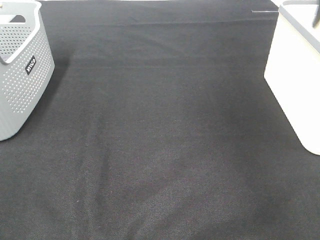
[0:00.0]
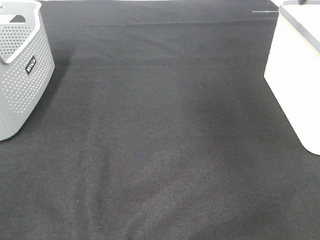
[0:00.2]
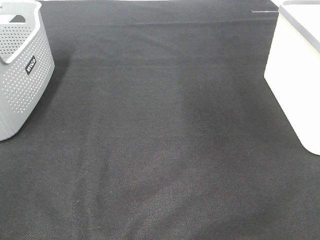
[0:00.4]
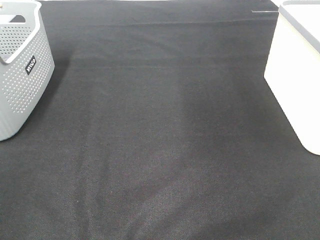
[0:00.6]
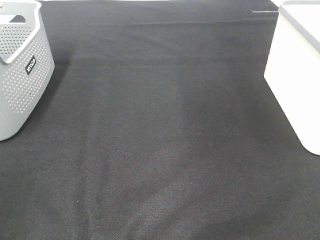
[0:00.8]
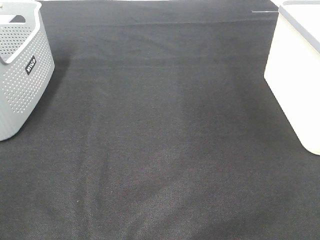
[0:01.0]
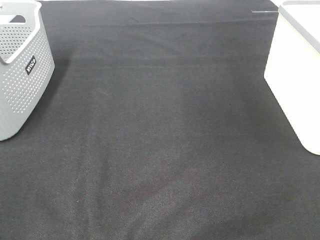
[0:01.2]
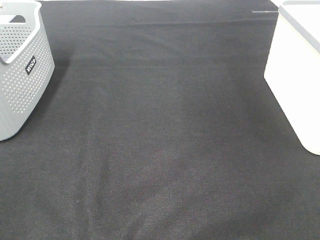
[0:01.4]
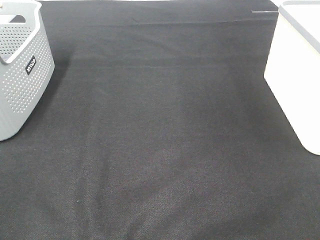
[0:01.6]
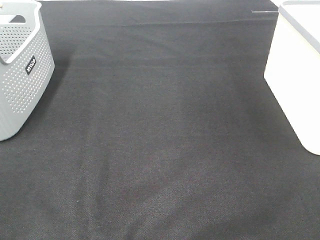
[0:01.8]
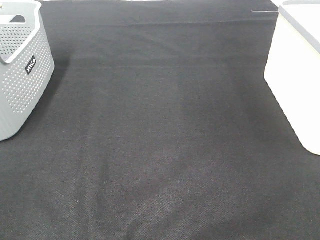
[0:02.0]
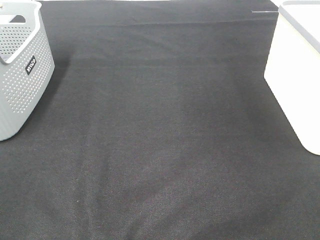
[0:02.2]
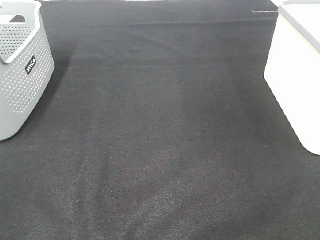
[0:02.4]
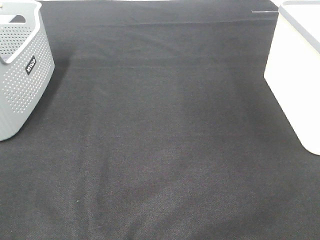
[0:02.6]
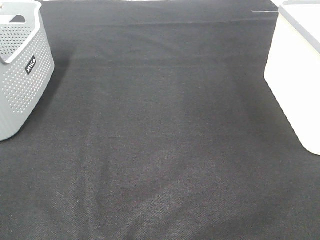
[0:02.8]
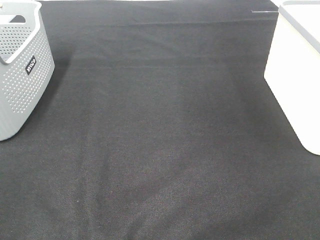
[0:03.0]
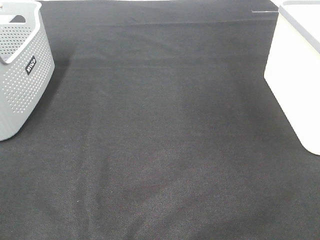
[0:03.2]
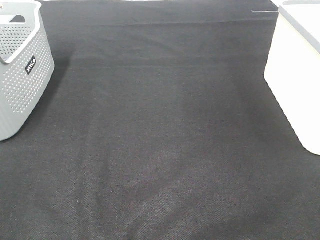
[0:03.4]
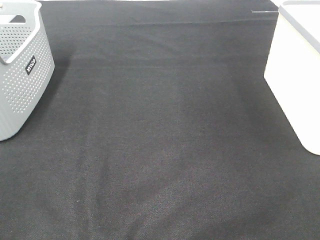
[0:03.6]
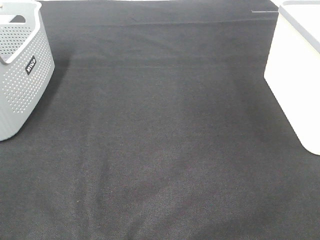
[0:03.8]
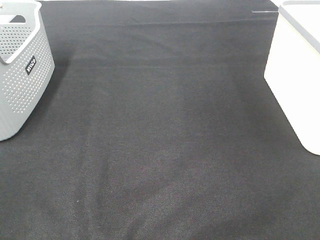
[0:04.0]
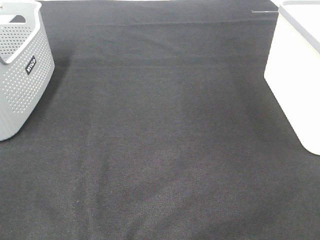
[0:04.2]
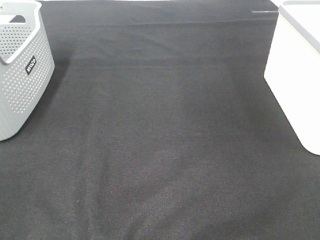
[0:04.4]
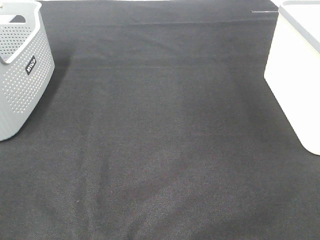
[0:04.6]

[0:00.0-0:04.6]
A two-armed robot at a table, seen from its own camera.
0:03.0 to 0:04.6: The two grippers keep their place.

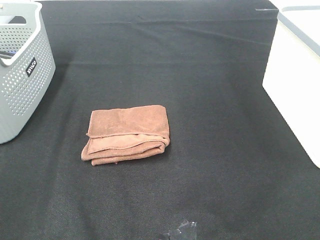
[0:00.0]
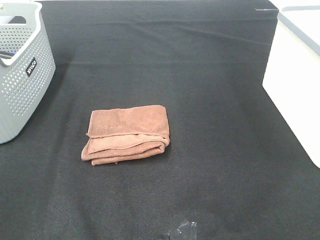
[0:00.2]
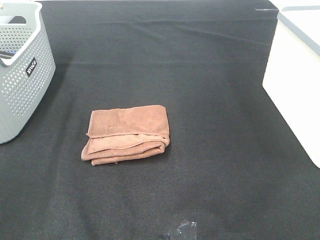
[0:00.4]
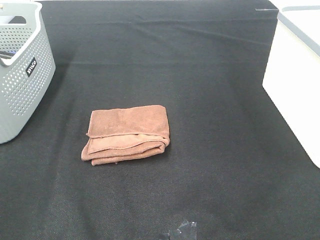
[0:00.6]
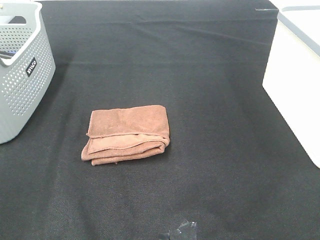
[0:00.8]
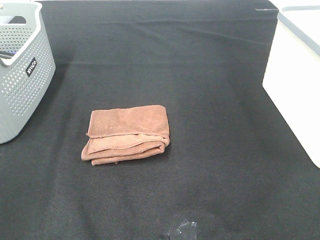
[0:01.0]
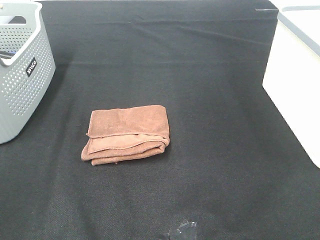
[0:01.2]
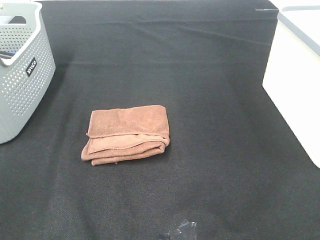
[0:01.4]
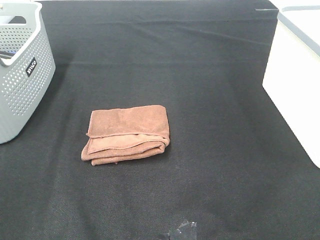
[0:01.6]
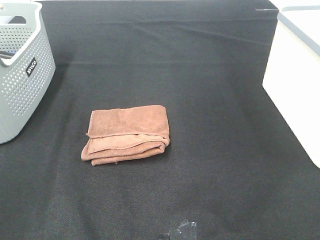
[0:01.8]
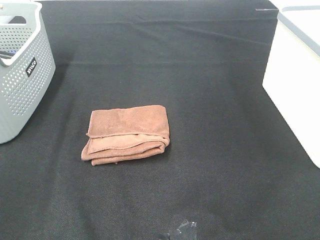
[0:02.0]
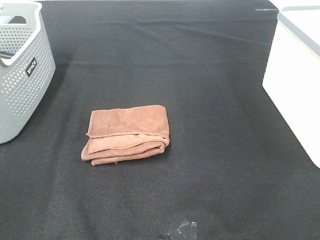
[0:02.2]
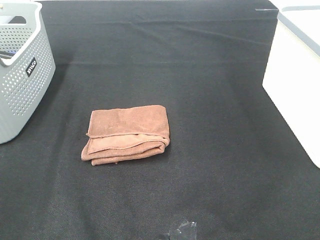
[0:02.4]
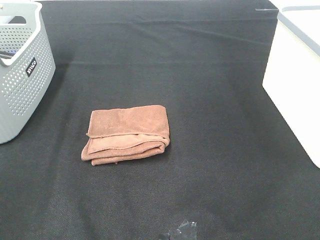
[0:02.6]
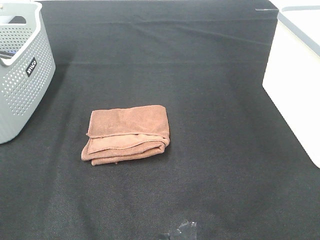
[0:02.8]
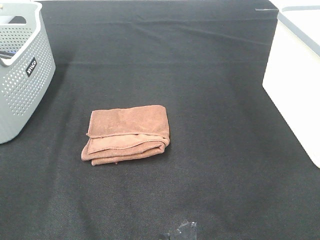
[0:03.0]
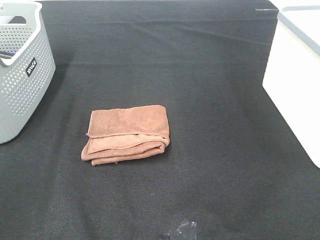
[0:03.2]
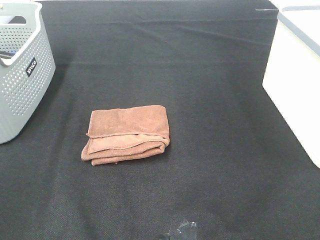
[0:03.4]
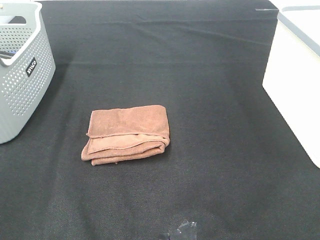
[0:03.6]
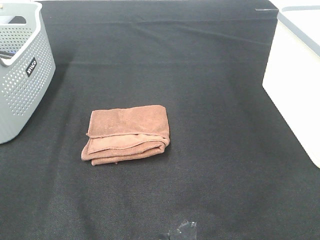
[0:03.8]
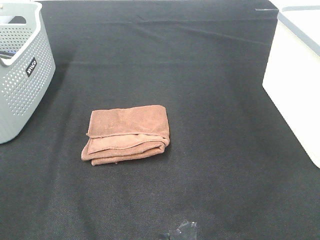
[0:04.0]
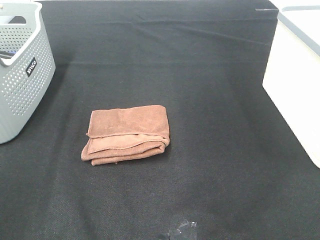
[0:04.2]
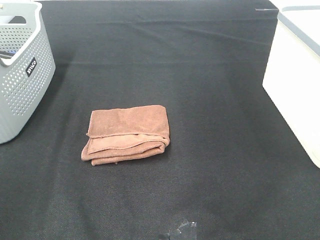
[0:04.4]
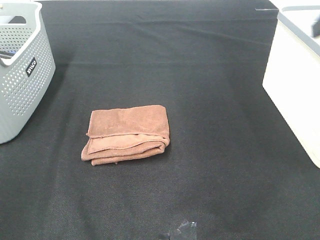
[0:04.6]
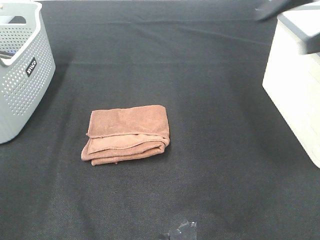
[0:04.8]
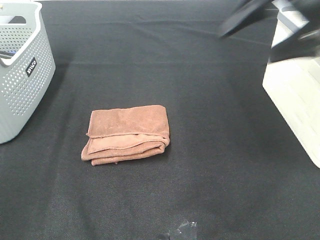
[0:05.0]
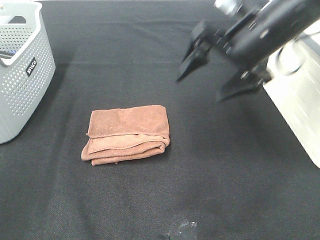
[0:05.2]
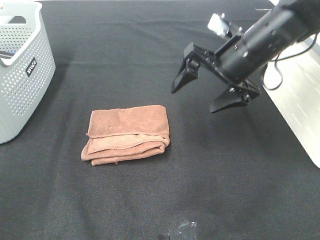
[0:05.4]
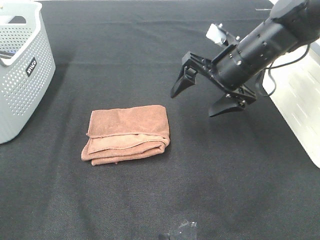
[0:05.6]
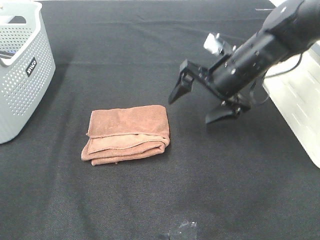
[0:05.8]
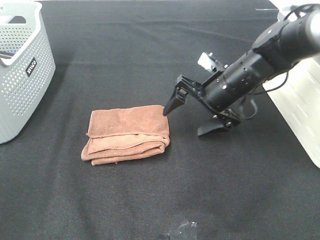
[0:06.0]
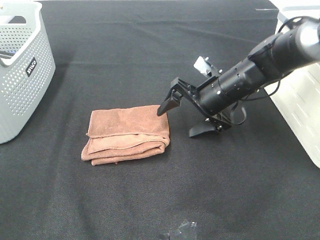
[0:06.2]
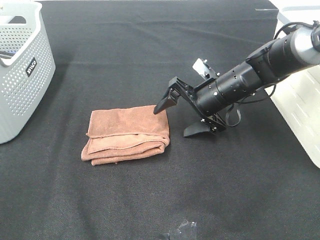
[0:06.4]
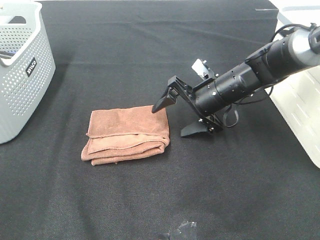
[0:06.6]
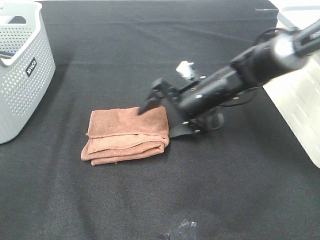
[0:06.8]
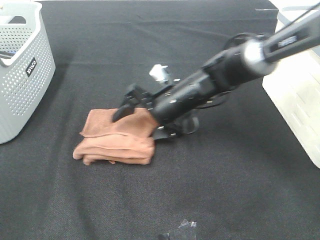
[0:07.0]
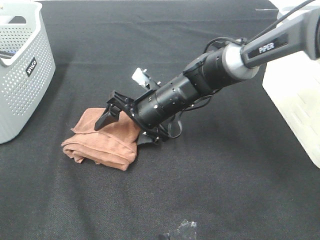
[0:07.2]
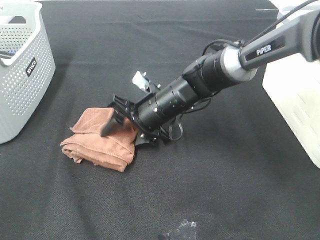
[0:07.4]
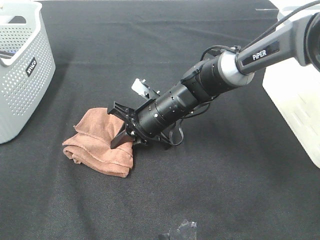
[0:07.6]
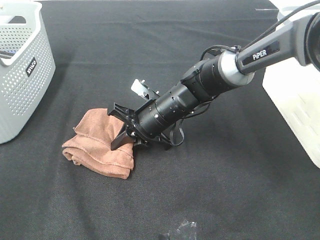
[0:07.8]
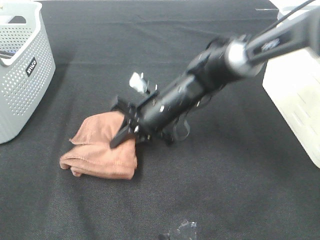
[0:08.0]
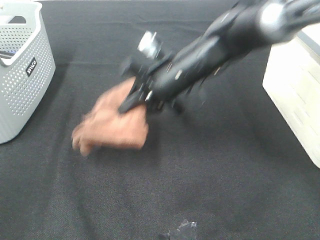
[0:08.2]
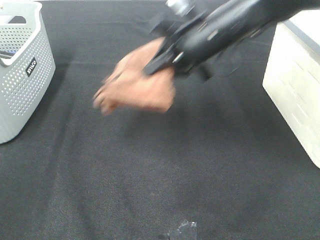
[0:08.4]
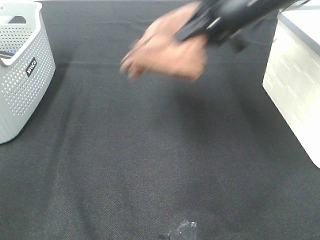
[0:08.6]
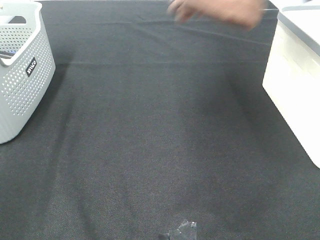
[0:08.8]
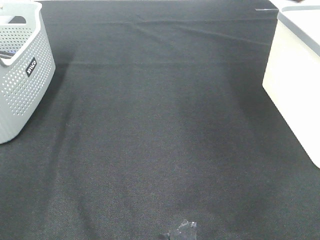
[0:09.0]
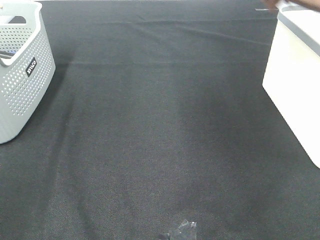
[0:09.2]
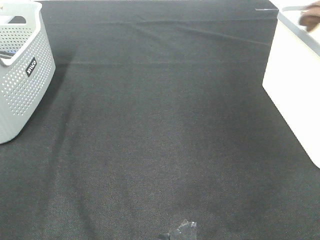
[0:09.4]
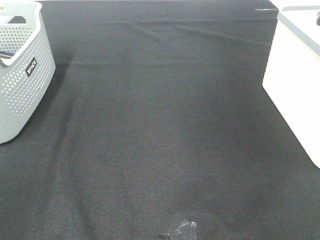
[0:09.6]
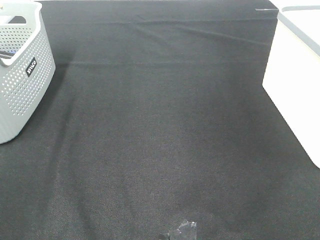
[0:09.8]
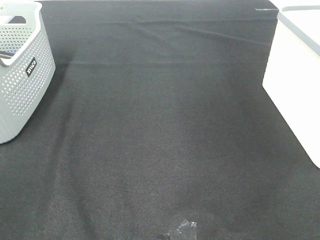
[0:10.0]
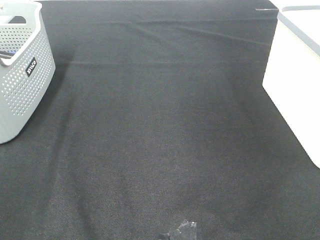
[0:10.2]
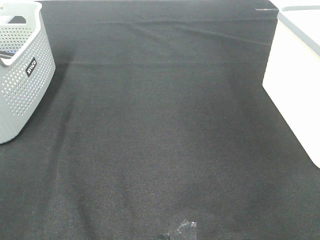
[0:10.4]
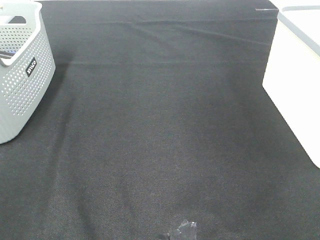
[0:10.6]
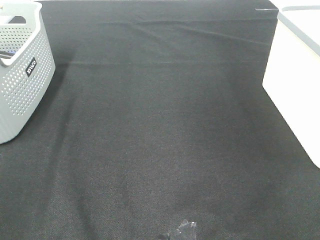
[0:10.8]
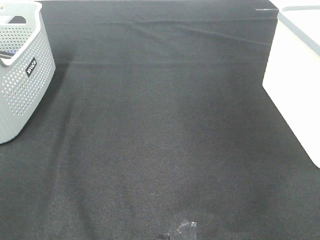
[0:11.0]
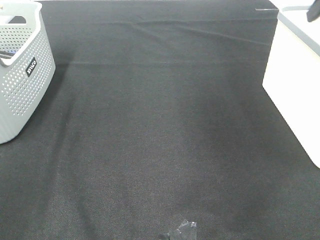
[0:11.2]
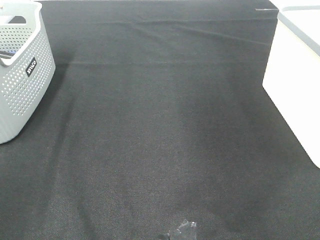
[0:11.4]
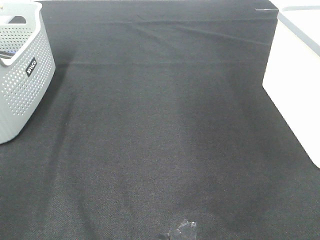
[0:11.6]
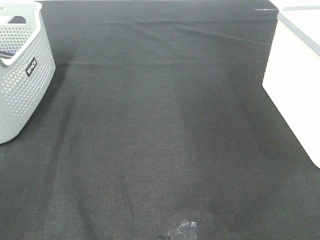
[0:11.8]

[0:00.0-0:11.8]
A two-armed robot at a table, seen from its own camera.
Step, 0:00.0 to 0:07.8: Right hand: grab the folded brown towel.
Step, 0:08.0 to 0:10.6: Right hand: place the brown towel in right basket.
0:00.0 to 0:03.0: The two grippers keep their place.
0:04.4 to 0:06.0: The right gripper is displaced downward, forward and to the left by roughly 35 cm.
0:06.0 to 0:07.4: The right gripper is displaced to the left by some 10 cm, and closes.
0:07.4 to 0:08.8: The right gripper travels upward and to the right by some 35 cm, and closes.
0:08.8 to 0:10.4: The right gripper is displaced to the right and downward by approximately 20 cm, and opens its fingers.

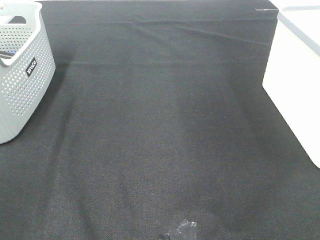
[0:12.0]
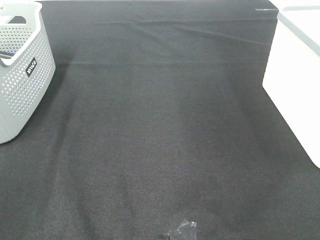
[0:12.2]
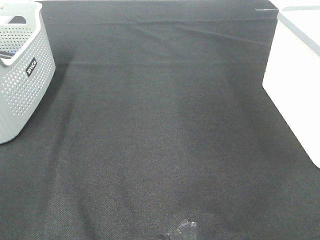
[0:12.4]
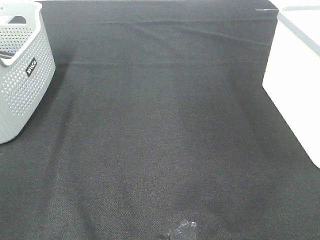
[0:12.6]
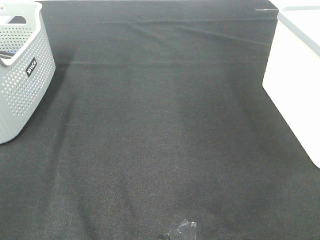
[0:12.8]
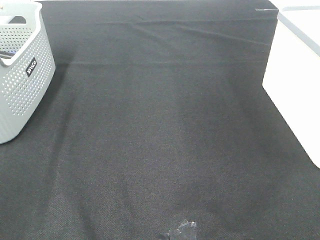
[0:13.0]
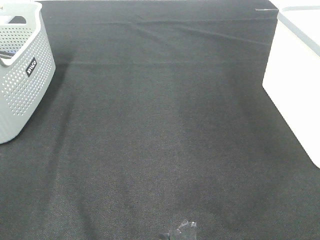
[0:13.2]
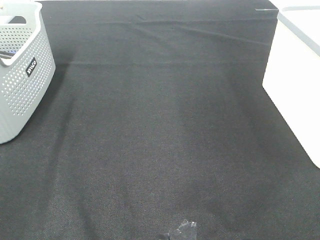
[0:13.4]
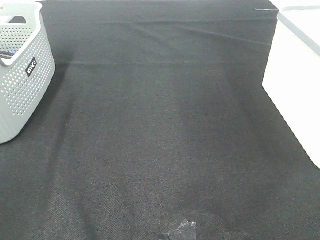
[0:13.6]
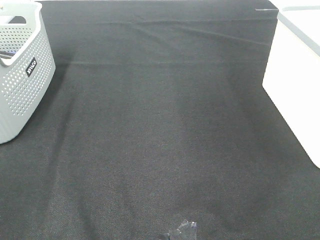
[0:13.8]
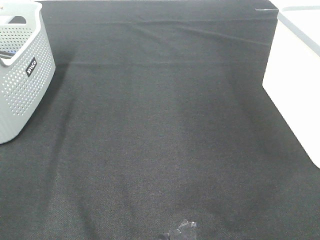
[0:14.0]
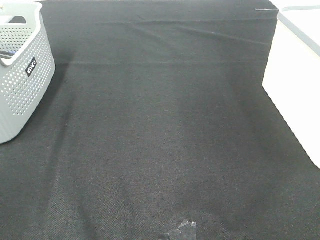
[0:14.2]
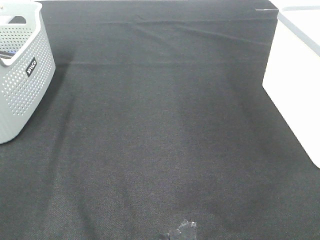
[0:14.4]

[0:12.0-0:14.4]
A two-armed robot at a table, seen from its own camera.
0:13.2 to 0:14.4: The two grippers keep their place.

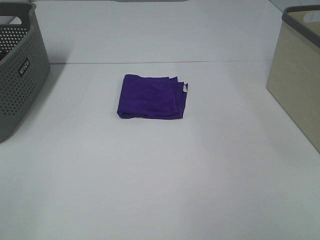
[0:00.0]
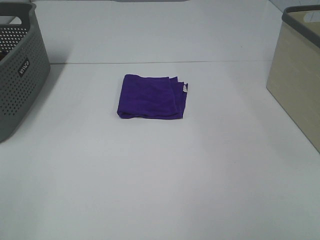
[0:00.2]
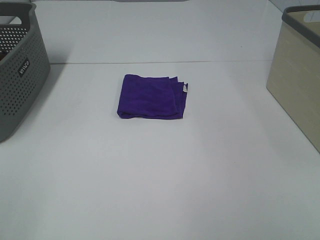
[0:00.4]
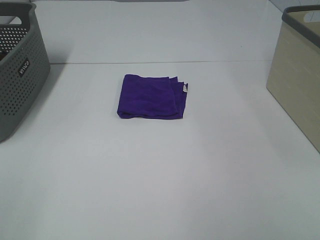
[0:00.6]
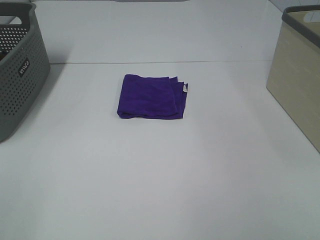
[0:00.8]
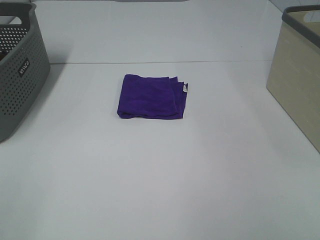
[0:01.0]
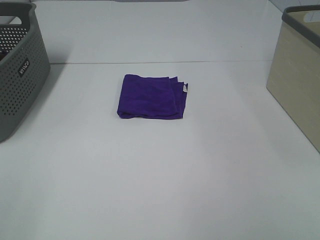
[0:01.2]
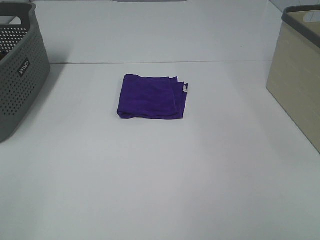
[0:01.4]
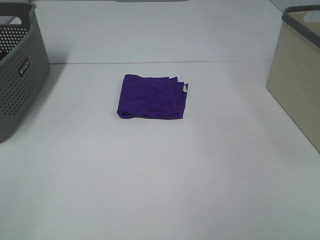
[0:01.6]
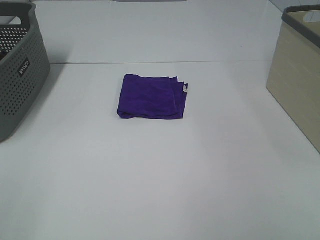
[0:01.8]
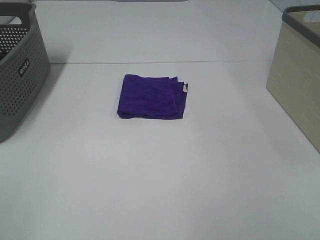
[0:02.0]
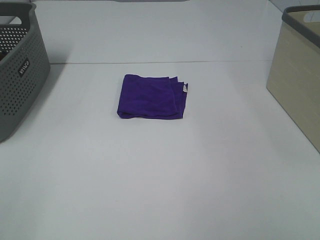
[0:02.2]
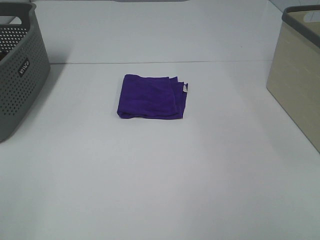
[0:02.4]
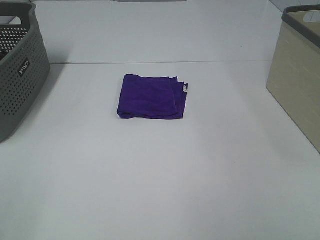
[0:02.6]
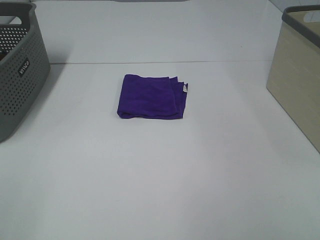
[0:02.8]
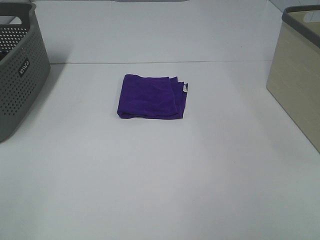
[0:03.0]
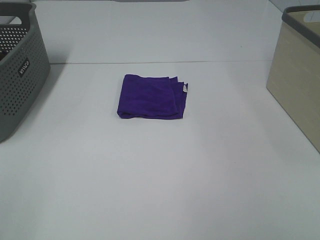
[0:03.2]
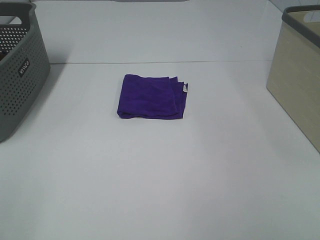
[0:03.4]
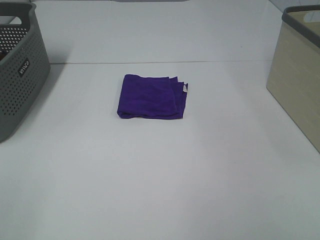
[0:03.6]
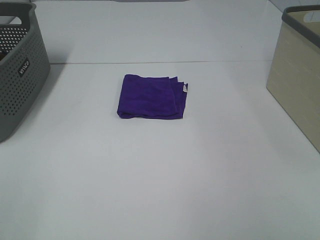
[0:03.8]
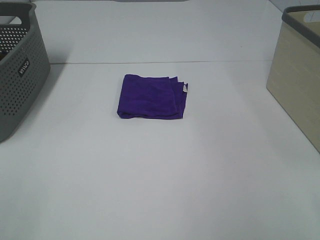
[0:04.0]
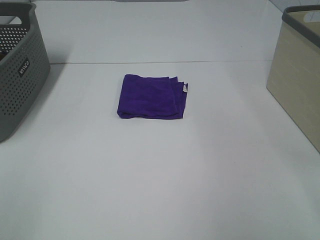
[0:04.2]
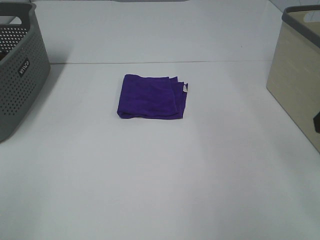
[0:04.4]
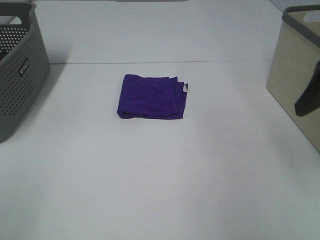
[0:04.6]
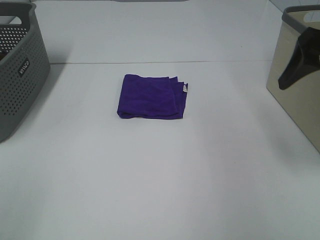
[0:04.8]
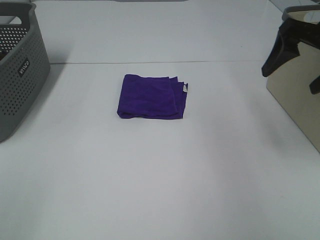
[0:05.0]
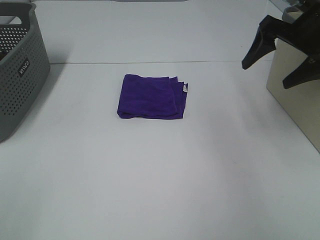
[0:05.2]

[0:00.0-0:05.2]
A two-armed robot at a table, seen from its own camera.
0:00.0 to 0:03.4: The two grippers keep their place.
0:03.4 to 0:05.2: The right gripper travels forward by roughly 35 cm.
